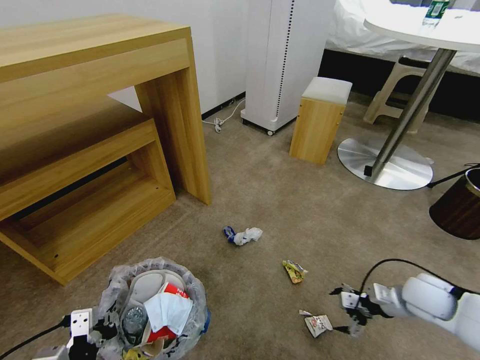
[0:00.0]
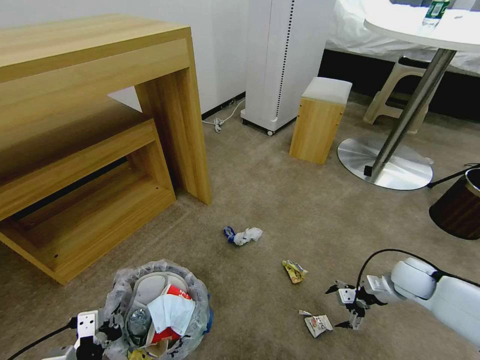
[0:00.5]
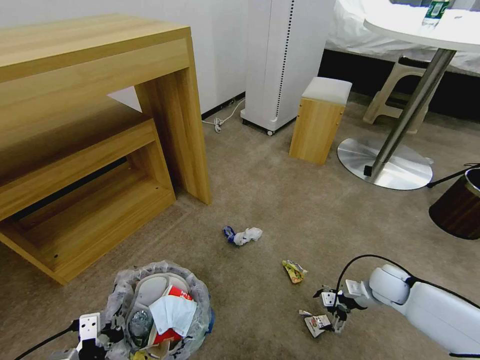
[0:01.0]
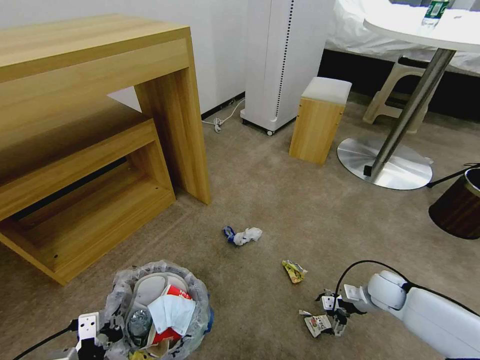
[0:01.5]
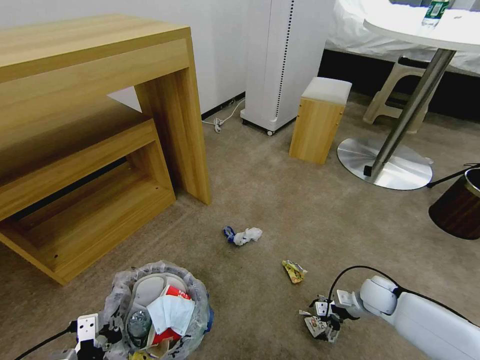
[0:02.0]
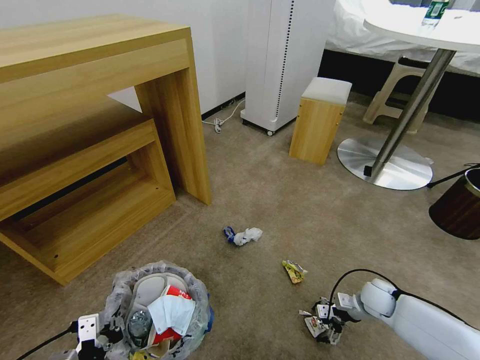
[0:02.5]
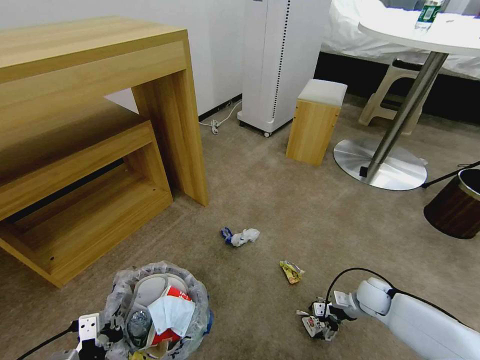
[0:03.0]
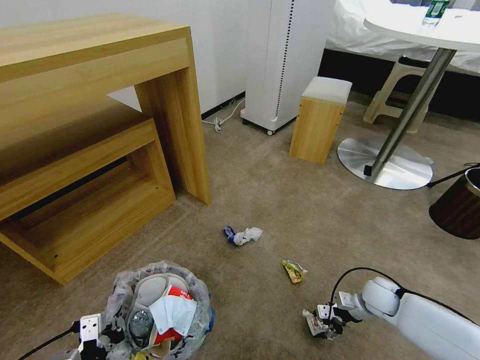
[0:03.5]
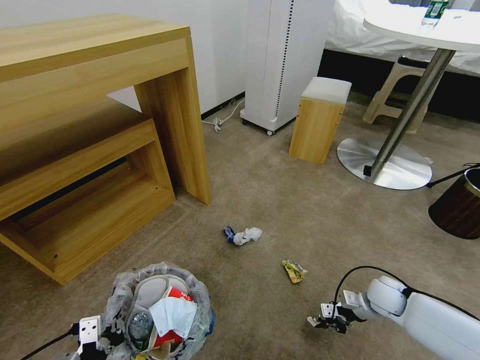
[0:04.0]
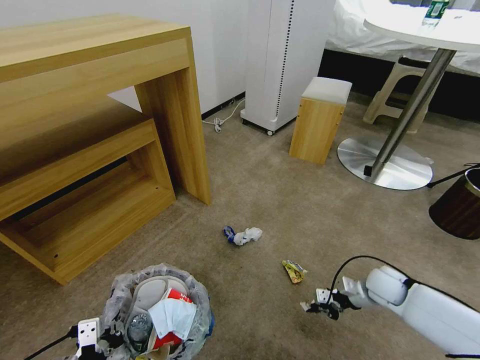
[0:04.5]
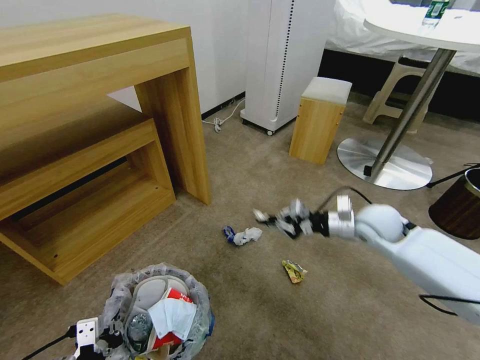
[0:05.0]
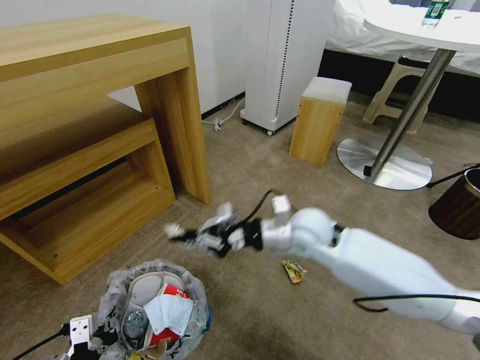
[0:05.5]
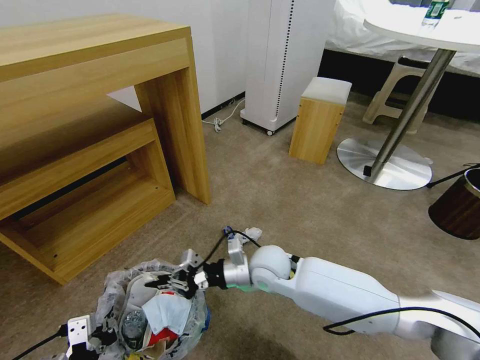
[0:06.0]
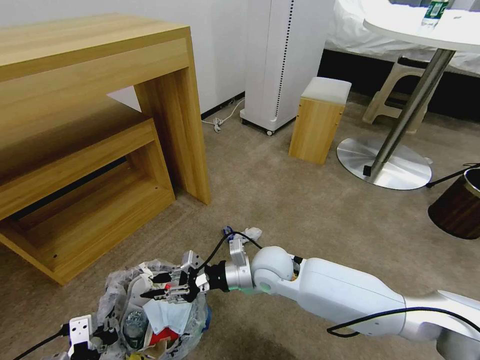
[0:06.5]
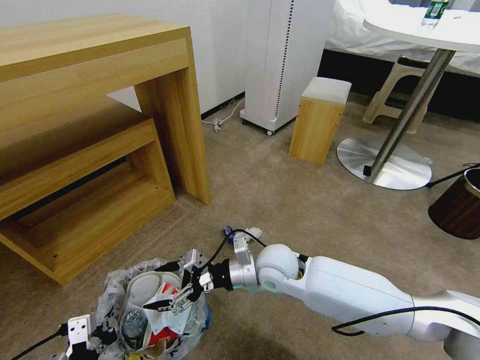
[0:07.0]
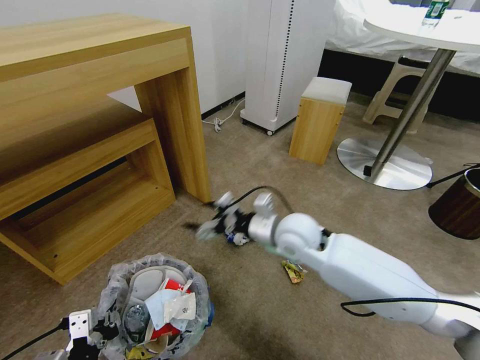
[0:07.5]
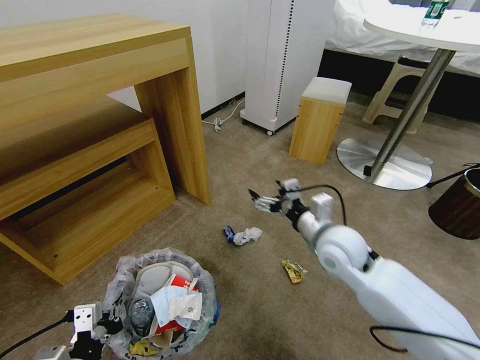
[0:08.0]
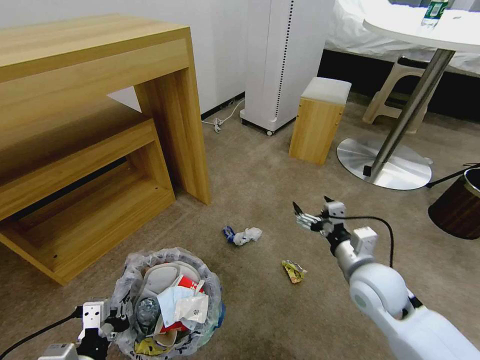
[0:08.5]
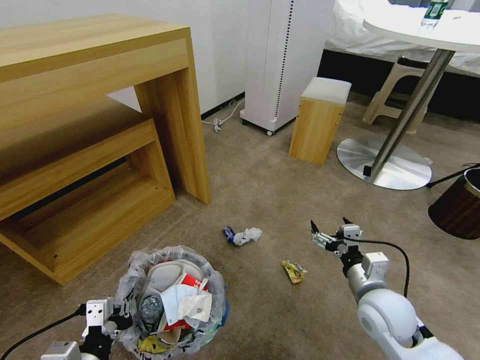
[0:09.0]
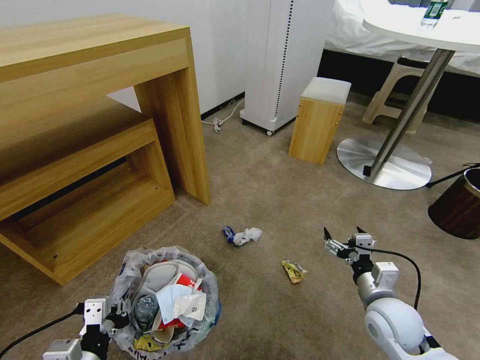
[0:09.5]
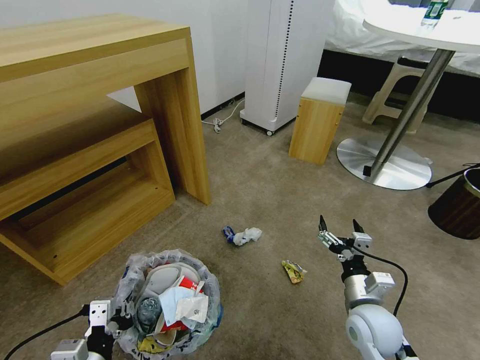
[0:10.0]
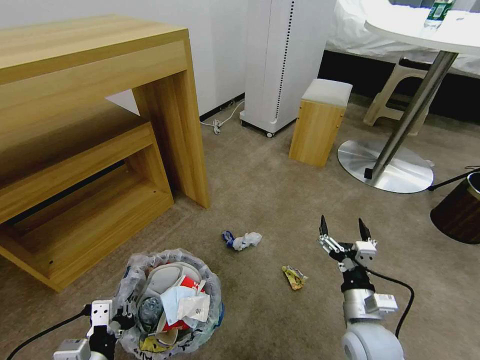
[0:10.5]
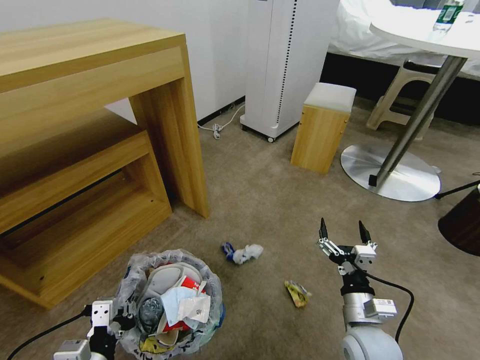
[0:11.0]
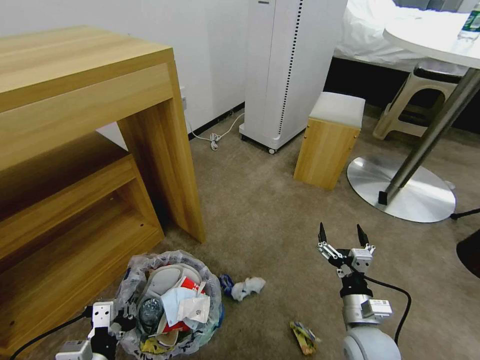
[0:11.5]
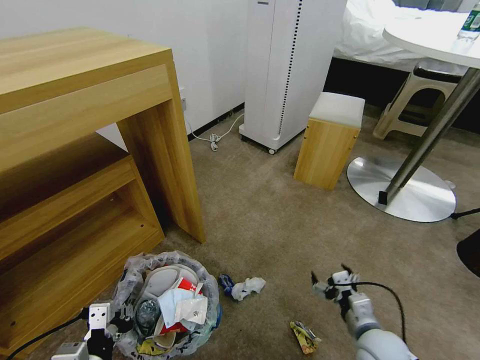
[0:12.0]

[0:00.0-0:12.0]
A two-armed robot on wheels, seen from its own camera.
Task of the whole recording: Pick up the trash bin and place the garbage on the floor into it.
0:00.0 to 0:02.0: The right gripper goes about 10 cm downward.
0:02.0 to 0:04.0: The right gripper closes up.
0:04.0 to 0:06.0: The right gripper shifts roughly 35 cm to the left.
0:06.0 to 0:08.0: The right gripper shifts some 15 cm to the right and upward, and opens its fingers.
0:08.0 to 0:10.0: The right gripper shifts some 20 cm downward, backward and to the right.
0:10.0 to 0:12.0: The right gripper changes place by approximately 5 cm.

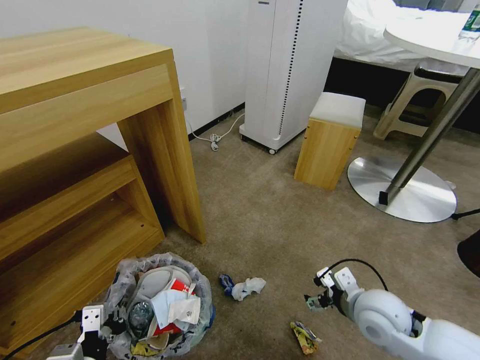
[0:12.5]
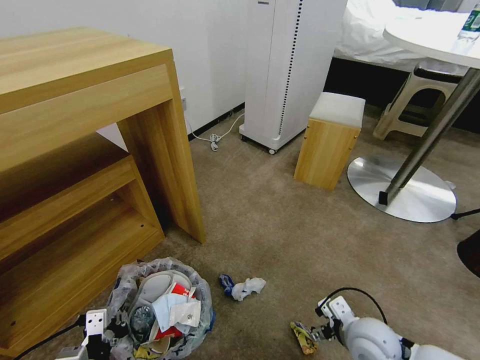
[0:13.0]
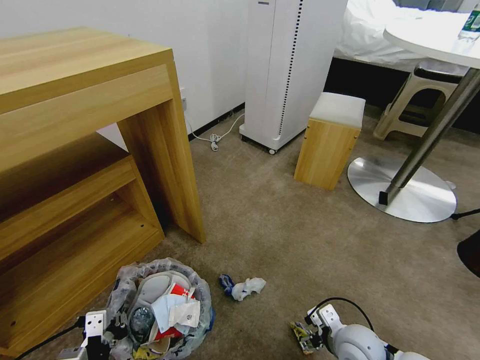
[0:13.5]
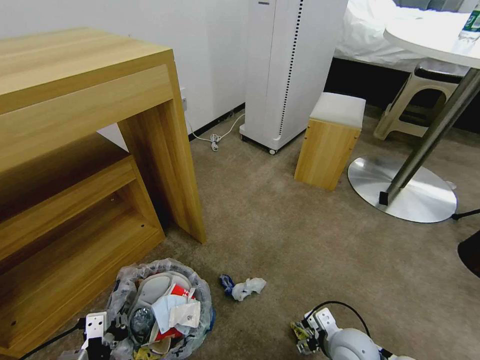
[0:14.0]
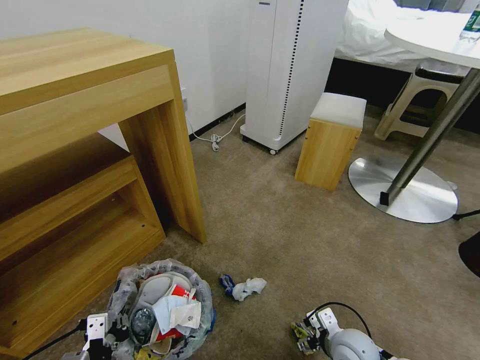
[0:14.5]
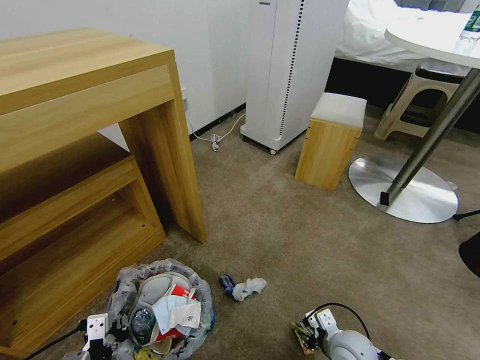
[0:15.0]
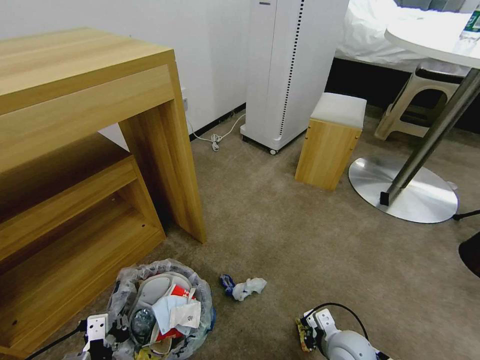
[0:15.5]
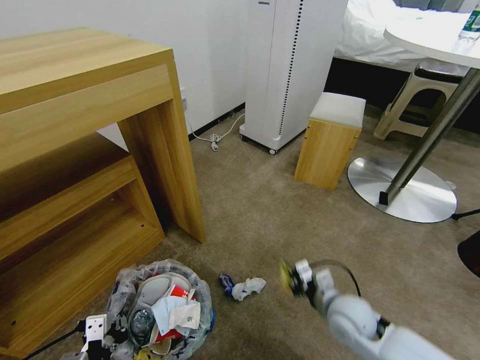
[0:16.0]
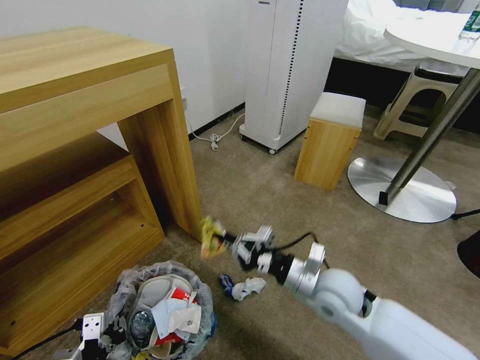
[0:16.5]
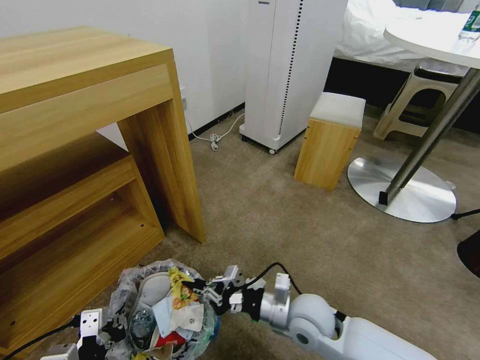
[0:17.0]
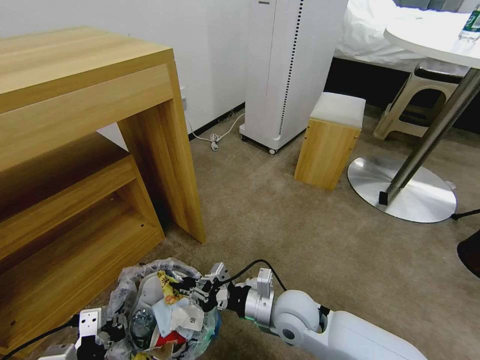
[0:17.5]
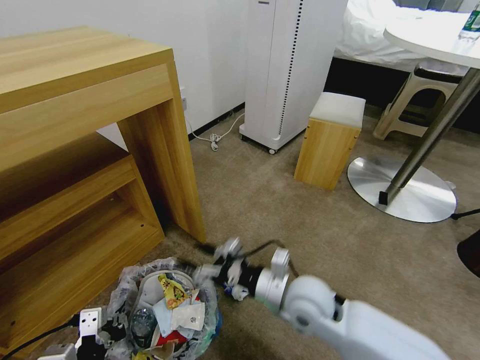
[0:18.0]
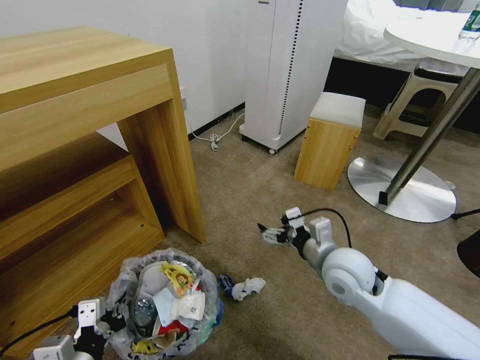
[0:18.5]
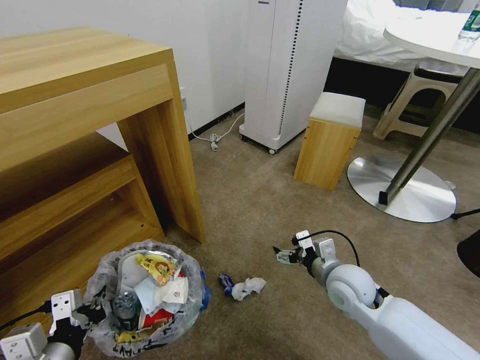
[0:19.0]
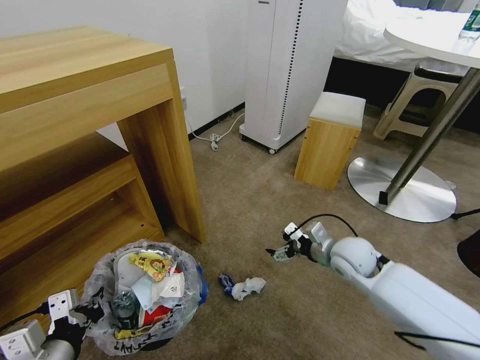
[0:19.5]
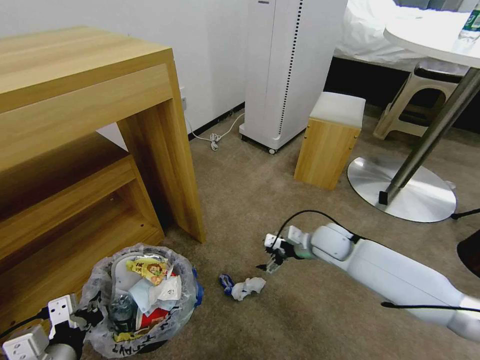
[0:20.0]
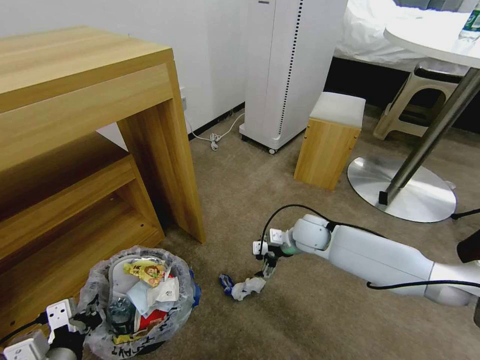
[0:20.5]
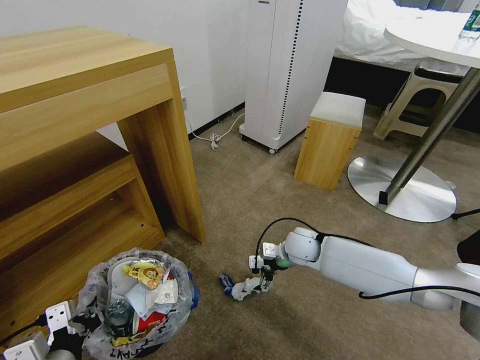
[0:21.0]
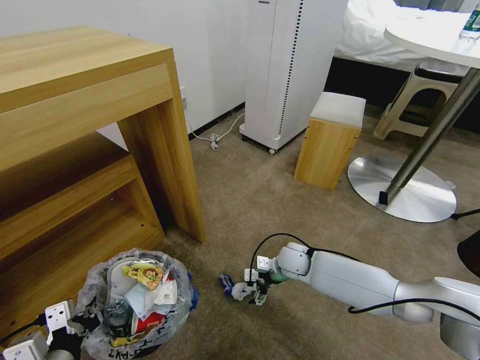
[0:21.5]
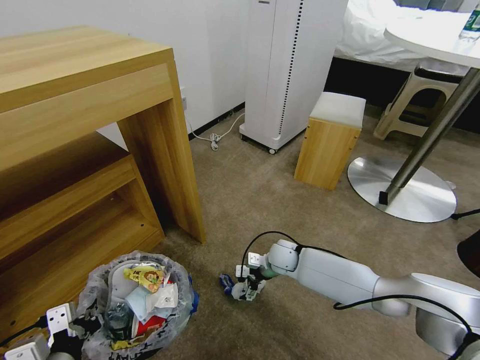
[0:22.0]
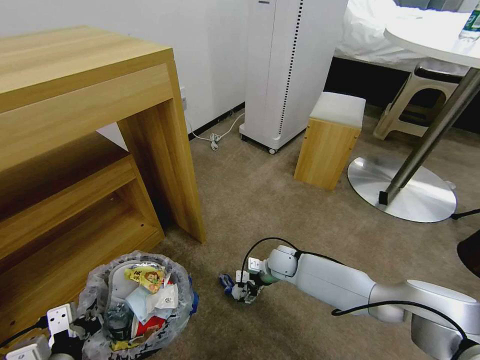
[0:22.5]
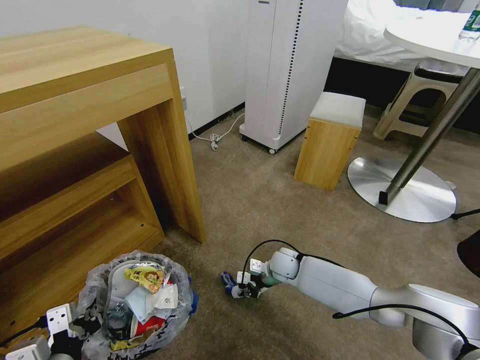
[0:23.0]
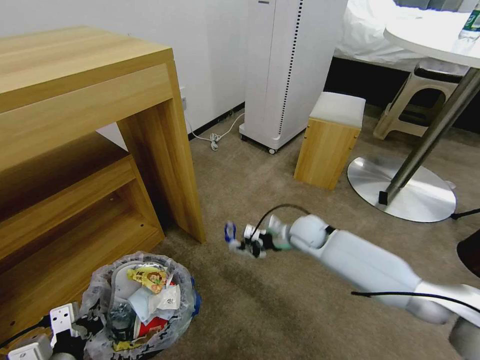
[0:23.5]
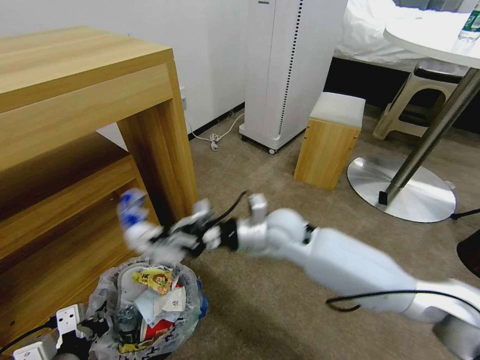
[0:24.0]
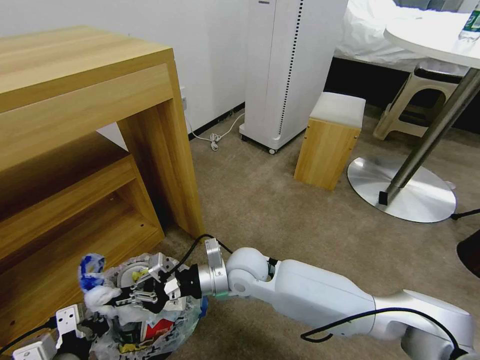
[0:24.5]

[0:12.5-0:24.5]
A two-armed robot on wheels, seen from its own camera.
Task of the whole recording: Pick up the trash bin and place the garbage on the floor into it.
0:12.5 to 0:14.5: The right gripper travels downward by about 10 cm.
0:14.5 to 0:16.5: The right gripper is displaced upward, forward and to the left by some 15 cm, and closes.
0:16.5 to 0:18.5: The right gripper goes to the left and returns, about 10 cm each way, and opens.
0:18.5 to 0:20.5: The right gripper goes roughly 15 cm forward and downward.
0:20.5 to 0:22.5: The right gripper travels downward and to the left by some 15 cm.
0:22.5 to 0:24.5: The right gripper shifts some 20 cm upward, to the left and backward, and closes up.

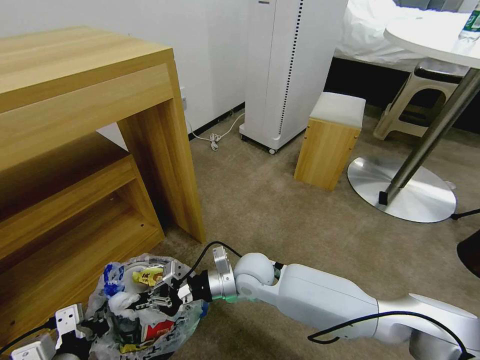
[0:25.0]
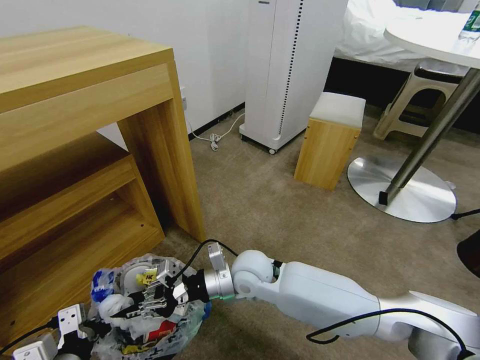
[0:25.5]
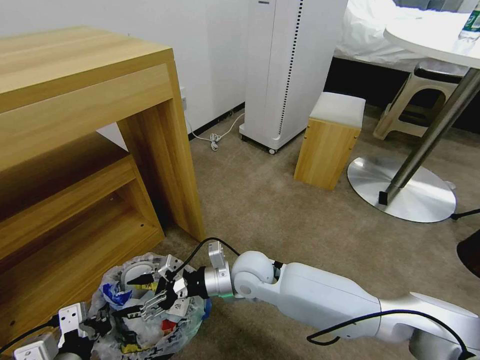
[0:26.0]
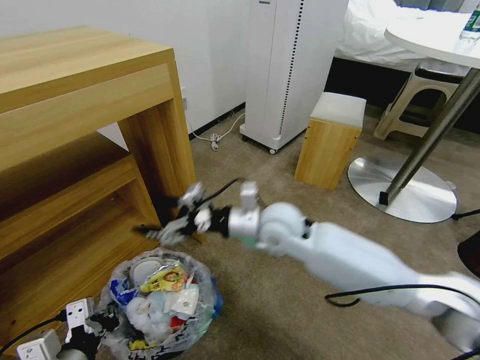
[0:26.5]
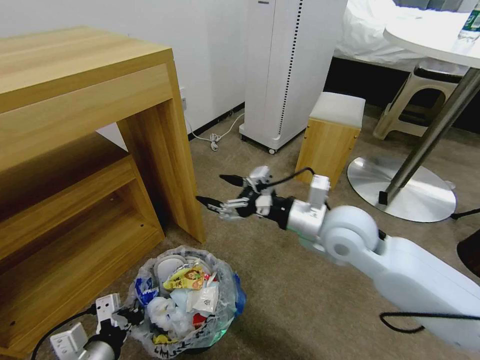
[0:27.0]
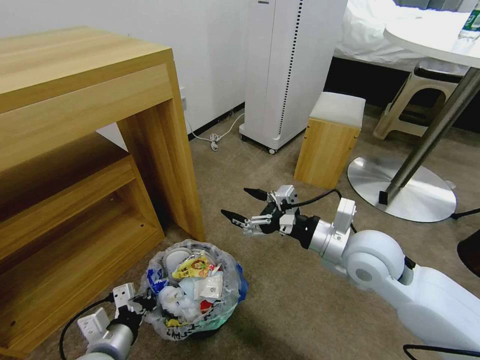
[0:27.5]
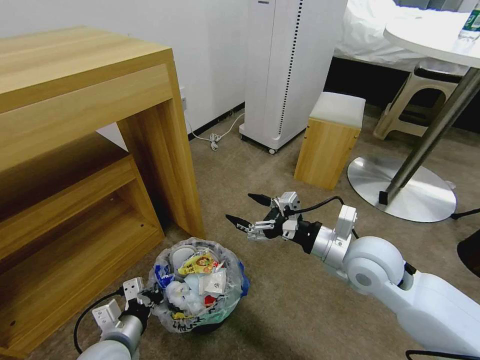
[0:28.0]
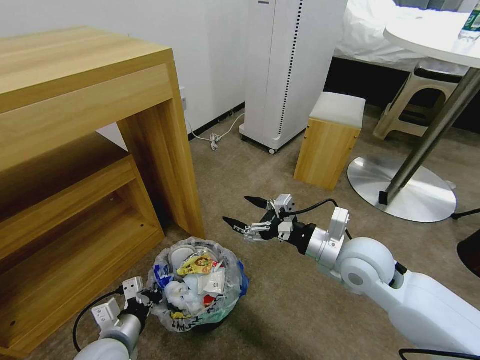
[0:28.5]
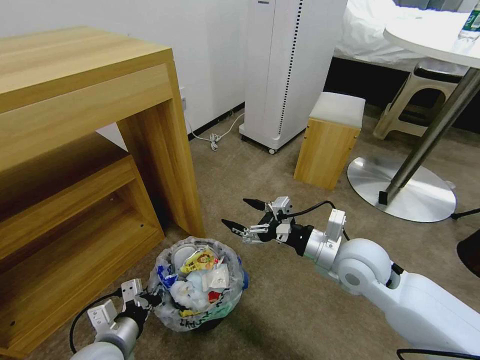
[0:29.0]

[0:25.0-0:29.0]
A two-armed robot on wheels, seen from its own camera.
Task of the whole recording: Pick up the trash bin and place the garbage on the floor into it.
0:25.0 to 0:27.0: The right gripper travels upward and to the right by roughly 25 cm, and opens.
0:27.0 to 0:29.0: The right gripper travels downward by about 5 cm; the left gripper is displaced forward by roughly 5 cm, and opens.
